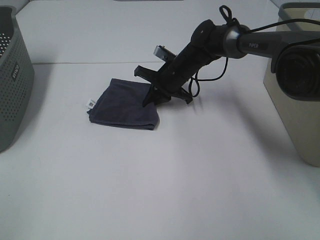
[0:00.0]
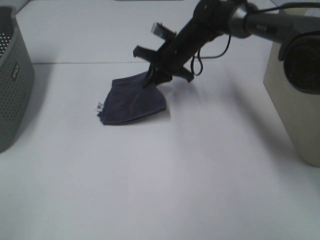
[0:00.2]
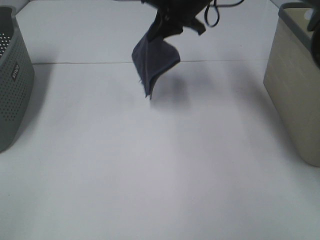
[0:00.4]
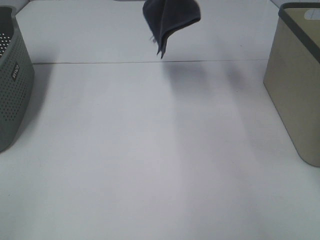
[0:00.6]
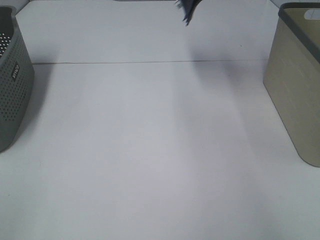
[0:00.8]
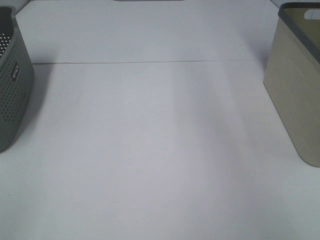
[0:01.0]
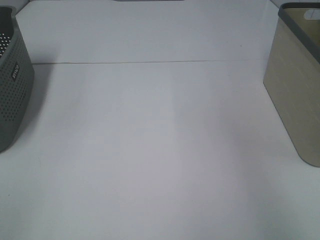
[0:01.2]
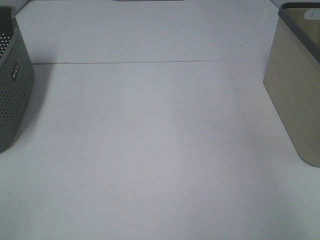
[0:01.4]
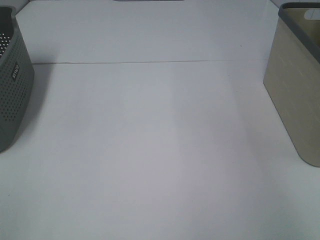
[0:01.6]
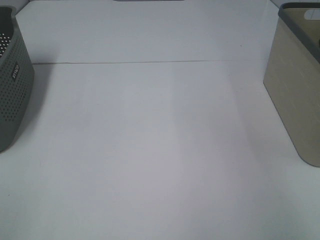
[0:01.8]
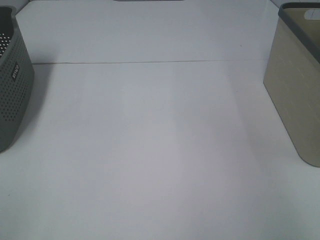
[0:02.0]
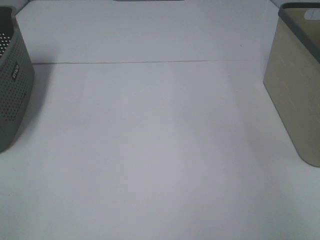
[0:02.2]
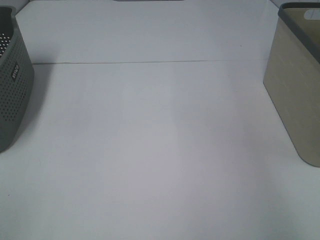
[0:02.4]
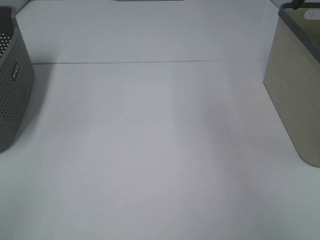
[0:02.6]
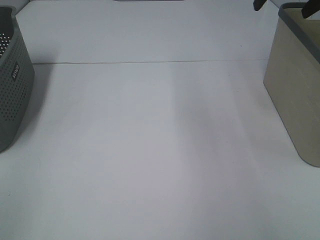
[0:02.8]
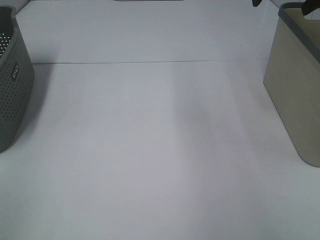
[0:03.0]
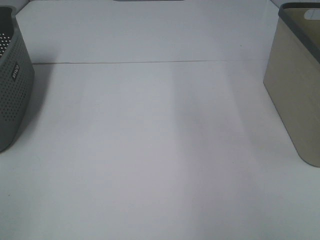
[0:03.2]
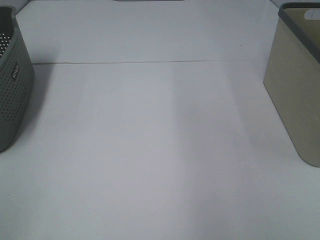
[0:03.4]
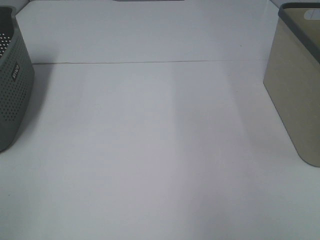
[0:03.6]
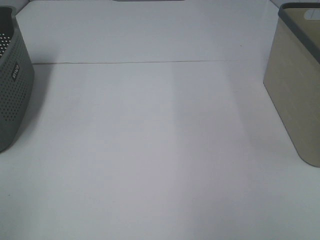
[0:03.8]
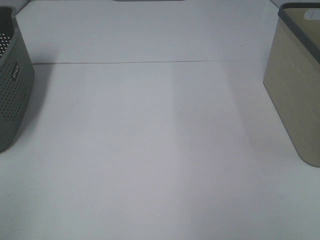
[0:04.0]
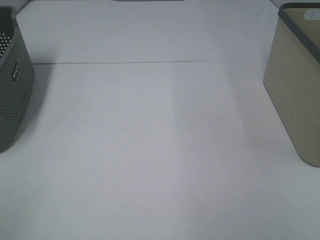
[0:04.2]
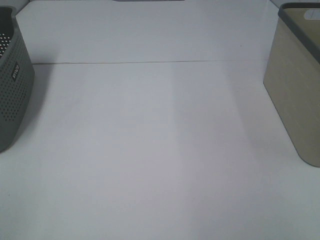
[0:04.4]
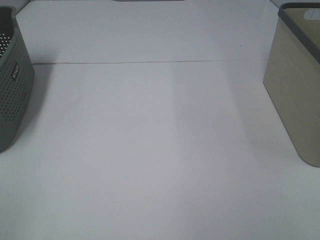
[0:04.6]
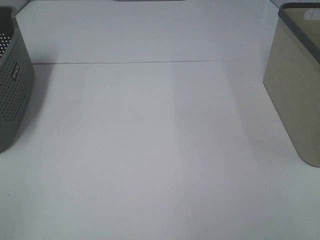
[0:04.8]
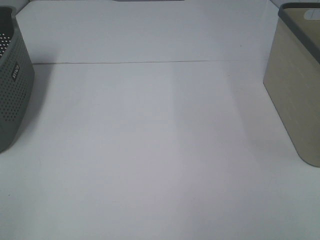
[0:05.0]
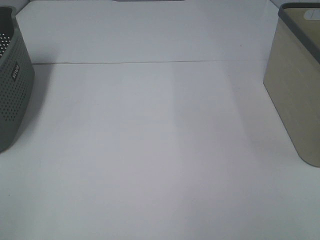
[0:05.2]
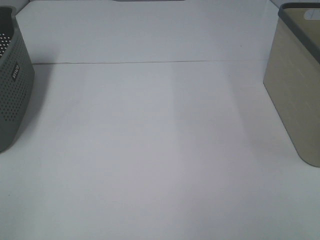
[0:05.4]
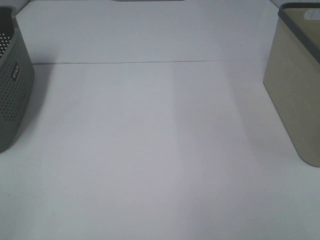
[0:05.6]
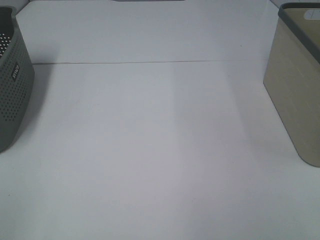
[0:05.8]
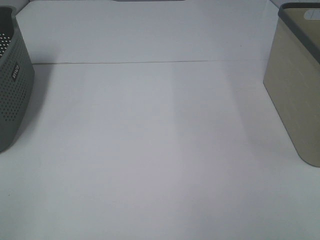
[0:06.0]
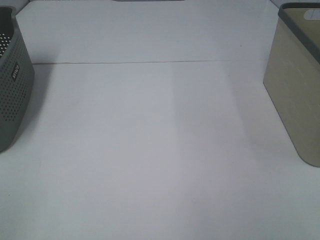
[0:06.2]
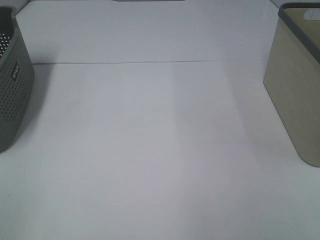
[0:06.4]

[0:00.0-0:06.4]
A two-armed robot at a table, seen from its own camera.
Step, 0:00.0 to 0:02.0: Right hand: place the grey towel in right basket.
0:00.0 to 0:01.6: The right gripper travels to the right and upward by some 50 cm.
